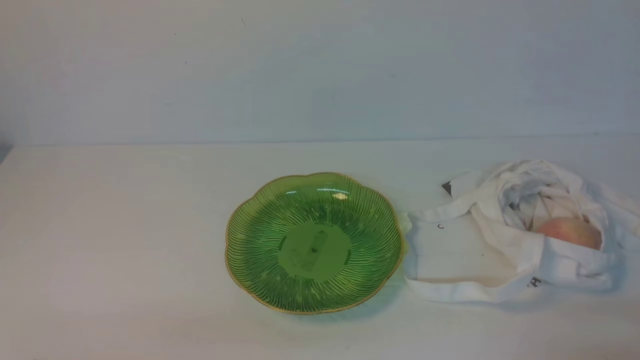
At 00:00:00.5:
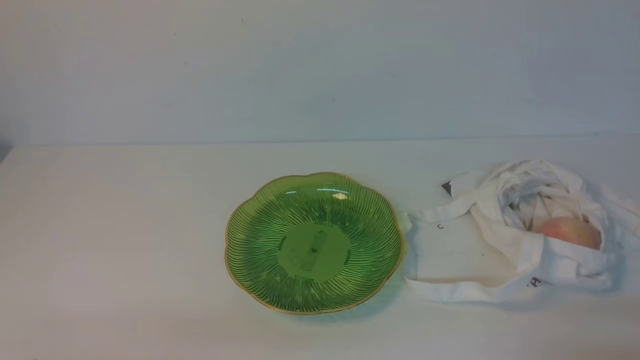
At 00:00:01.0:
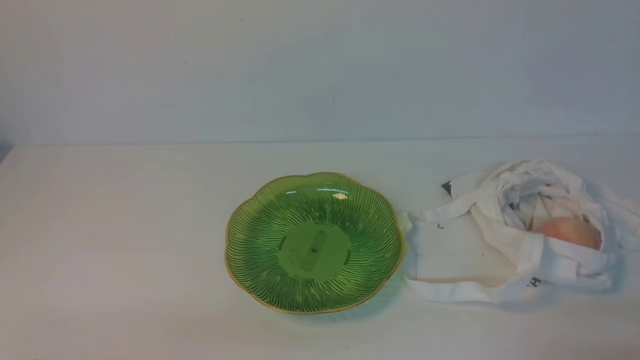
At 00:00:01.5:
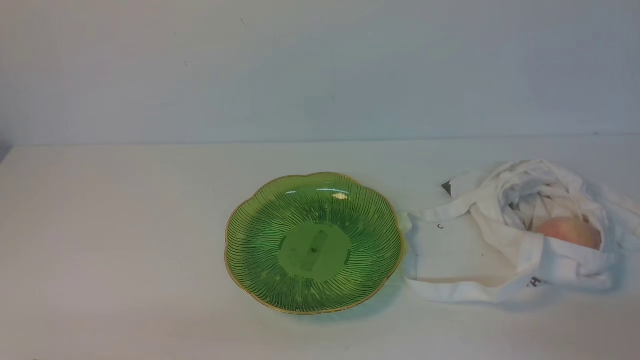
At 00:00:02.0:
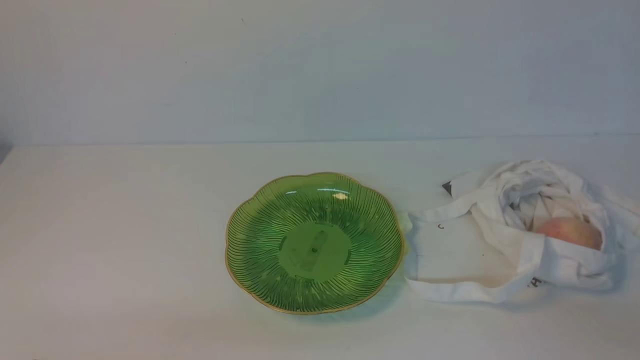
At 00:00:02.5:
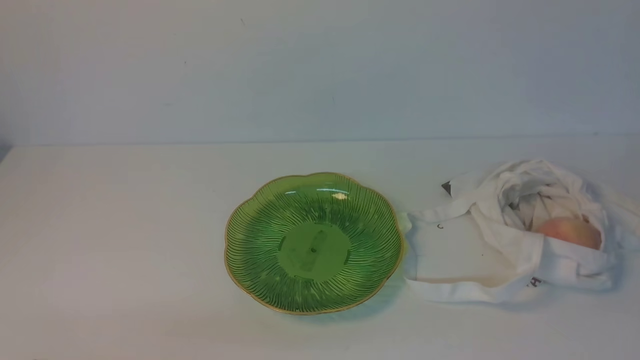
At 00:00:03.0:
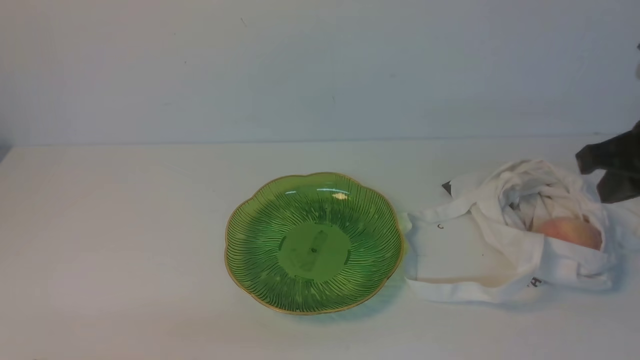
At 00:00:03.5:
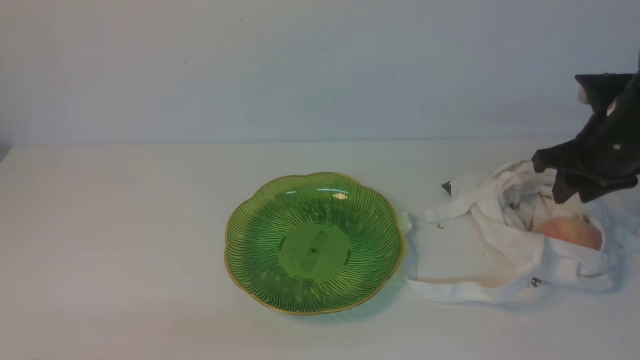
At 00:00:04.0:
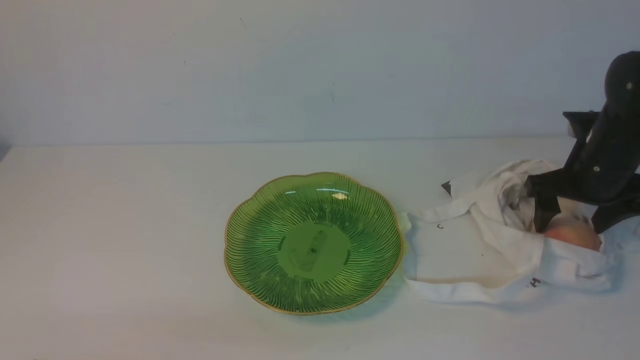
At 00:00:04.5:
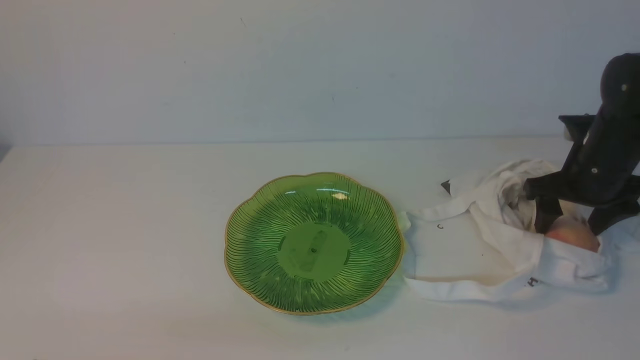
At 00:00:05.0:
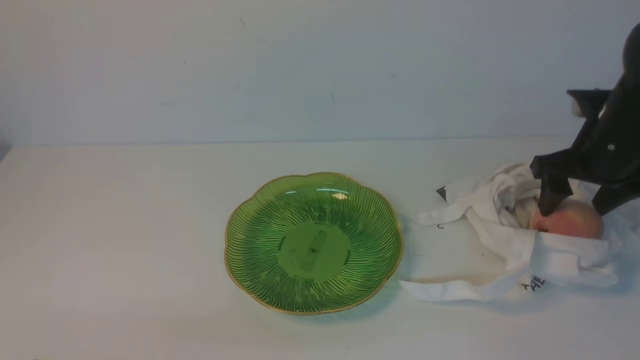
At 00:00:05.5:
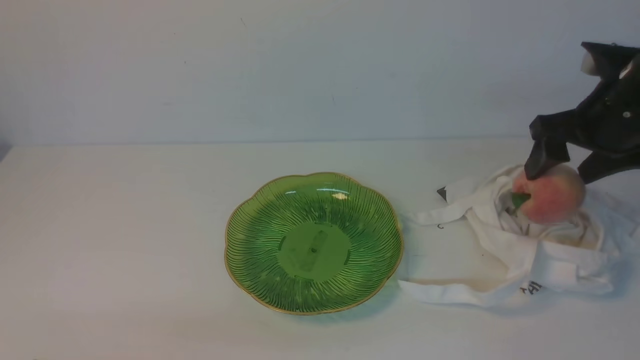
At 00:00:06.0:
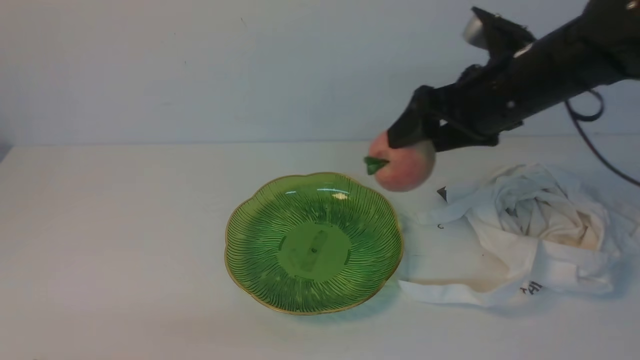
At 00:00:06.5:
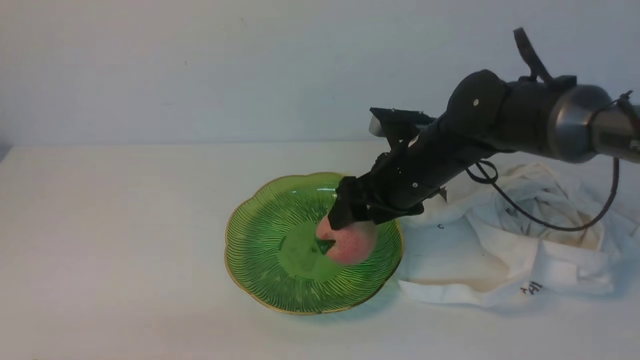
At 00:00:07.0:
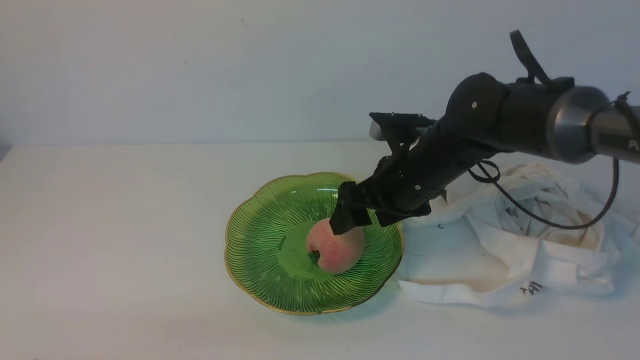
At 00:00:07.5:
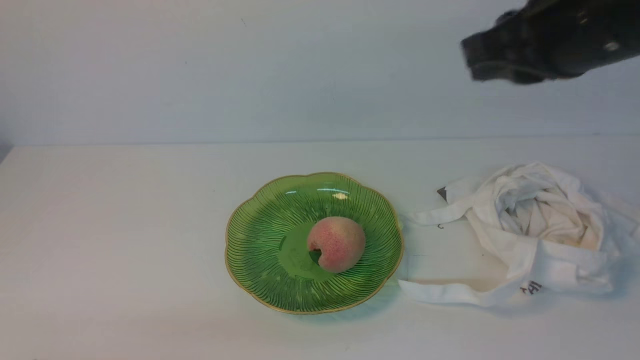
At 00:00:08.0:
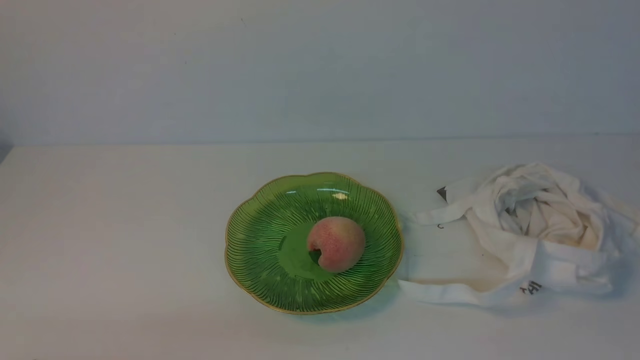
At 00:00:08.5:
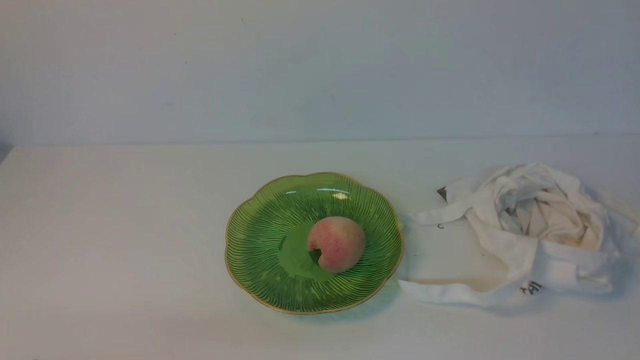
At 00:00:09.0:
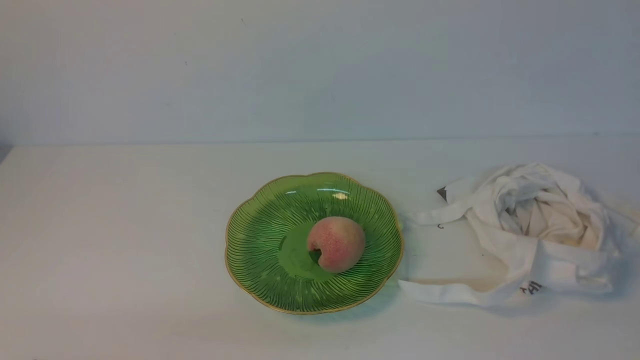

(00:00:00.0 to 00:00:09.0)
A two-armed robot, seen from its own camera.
Step, 00:00:00.0 - 00:00:05.0: use the right arm to grab a peach from the bag.
Step, 00:00:05.5 - 00:00:06.5: use the right arm to put the peach into the empty plate on the left.
00:00:02.0 - 00:00:04.5: The right gripper goes about 35 cm forward, and opens its fingers.
00:00:04.5 - 00:00:07.0: The right gripper goes roughly 20 cm to the left.
00:00:07.0 - 00:00:09.0: The right gripper shifts approximately 35 cm backward and to the right, and closes its fingers.

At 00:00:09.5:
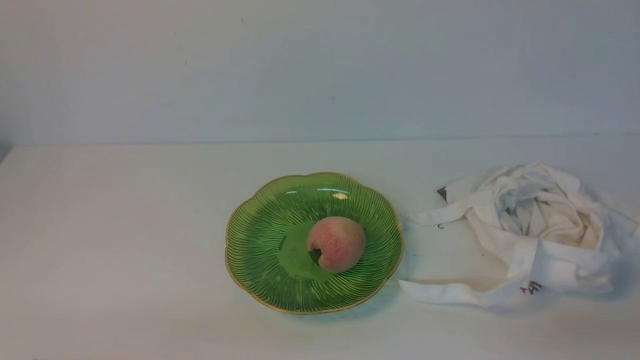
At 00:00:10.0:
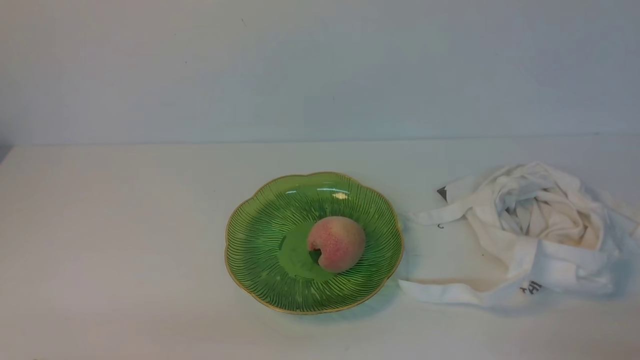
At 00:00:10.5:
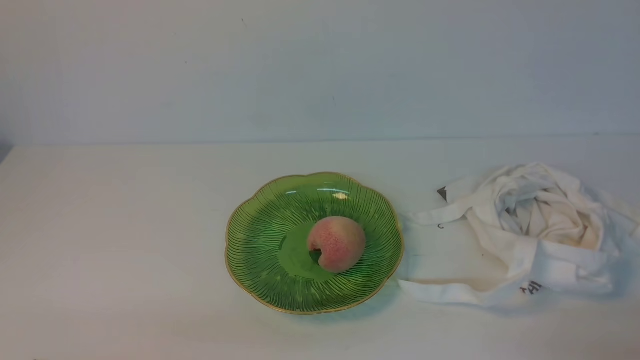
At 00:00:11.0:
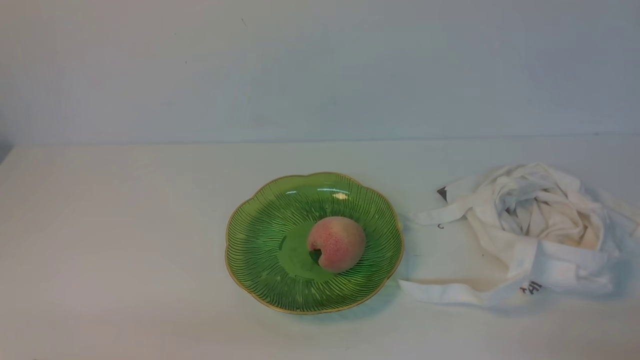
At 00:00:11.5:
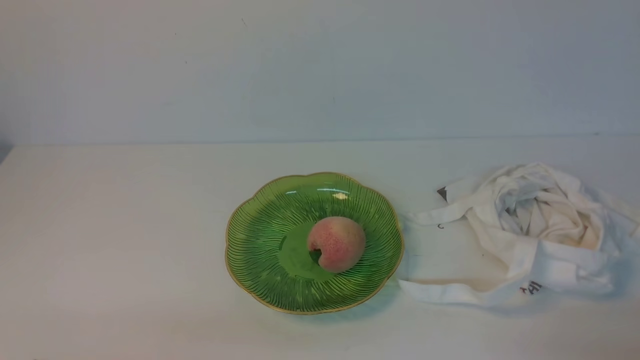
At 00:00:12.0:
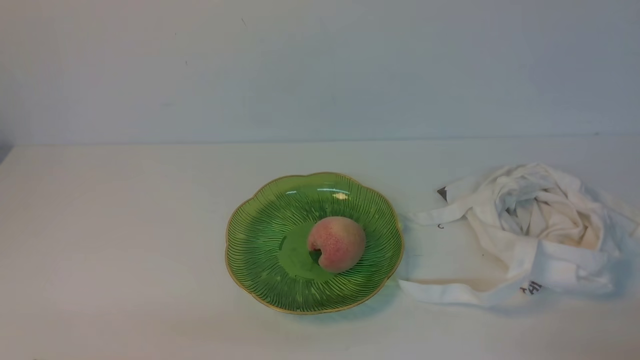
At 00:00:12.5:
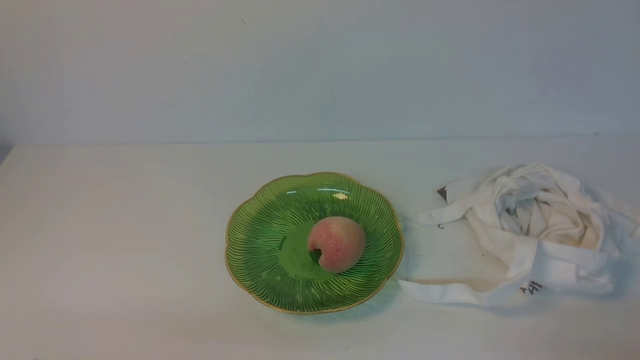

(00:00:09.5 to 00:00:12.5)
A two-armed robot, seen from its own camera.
00:00:11.0 - 00:00:12.5: The two grippers keep their place.

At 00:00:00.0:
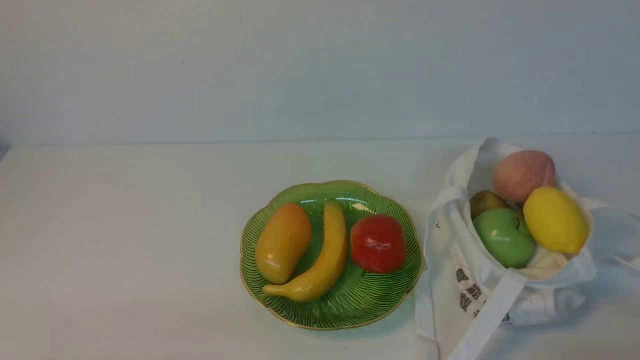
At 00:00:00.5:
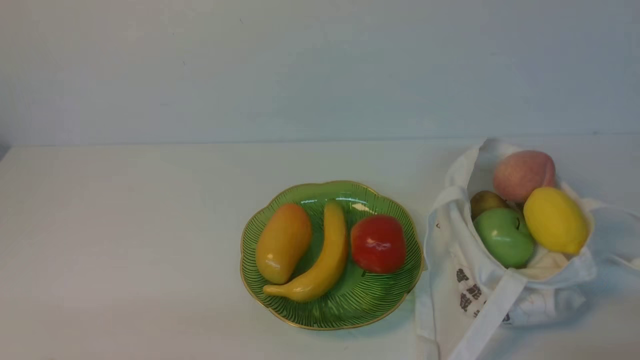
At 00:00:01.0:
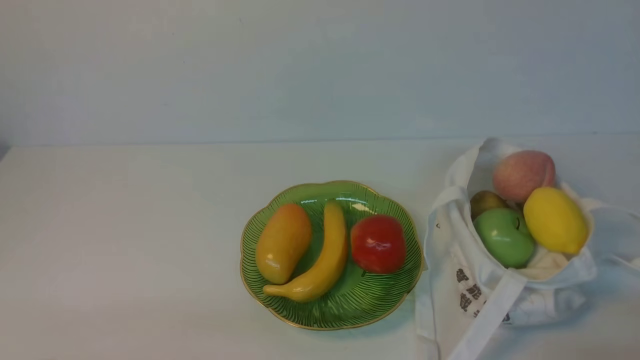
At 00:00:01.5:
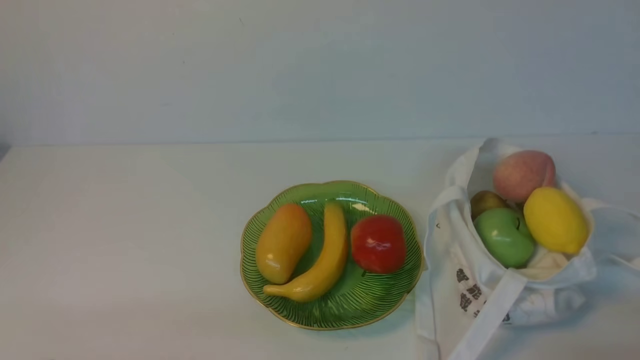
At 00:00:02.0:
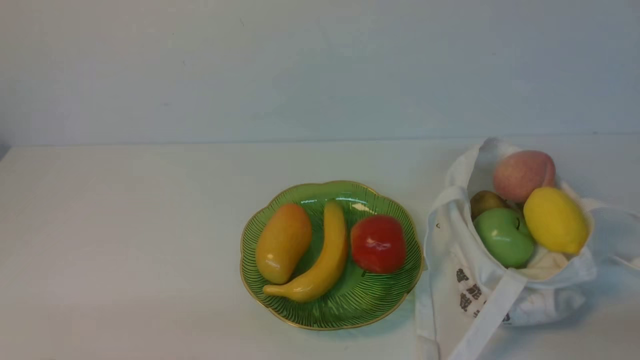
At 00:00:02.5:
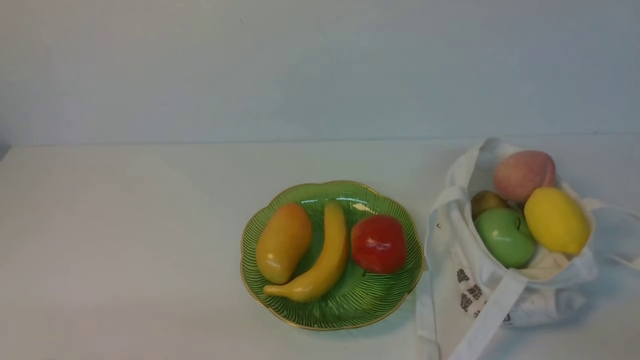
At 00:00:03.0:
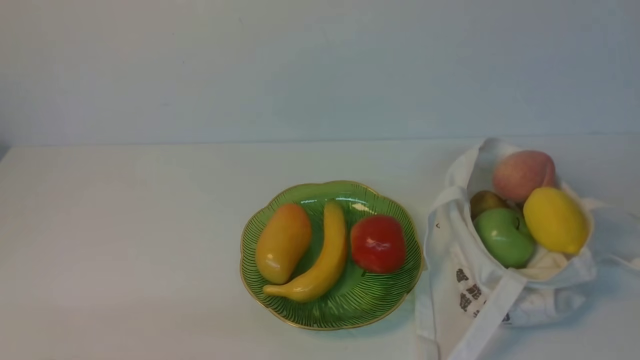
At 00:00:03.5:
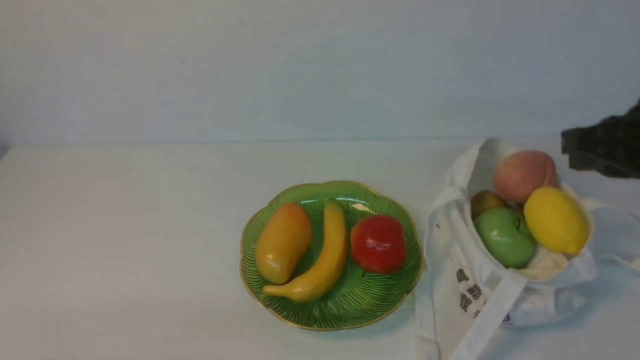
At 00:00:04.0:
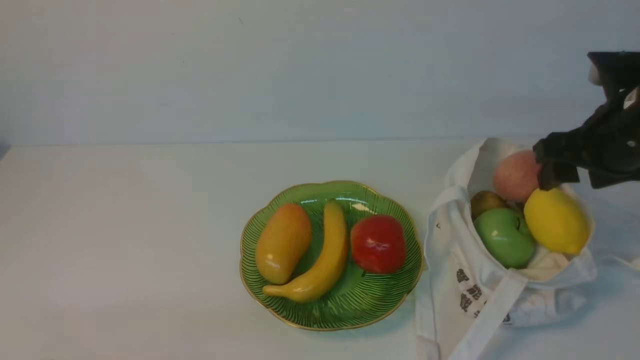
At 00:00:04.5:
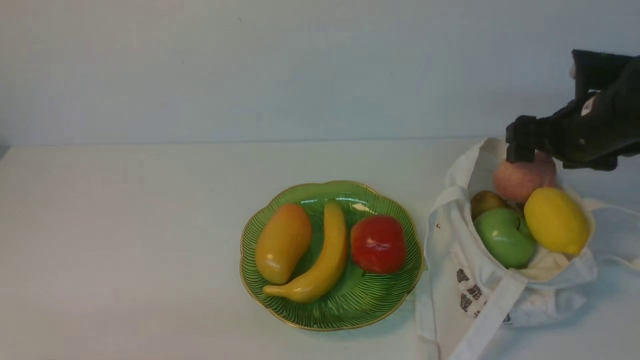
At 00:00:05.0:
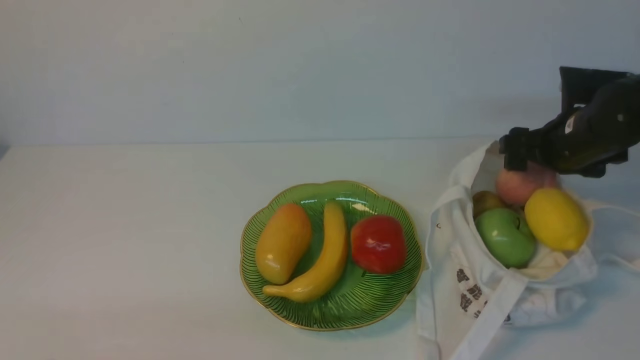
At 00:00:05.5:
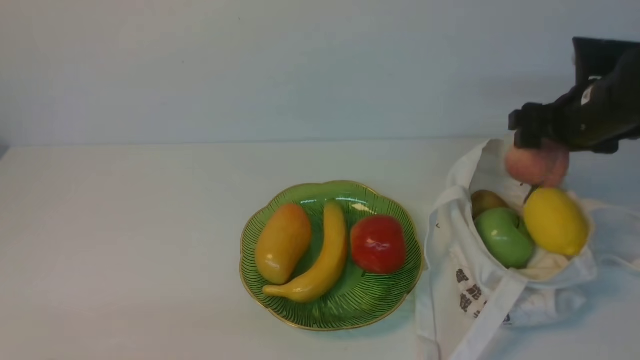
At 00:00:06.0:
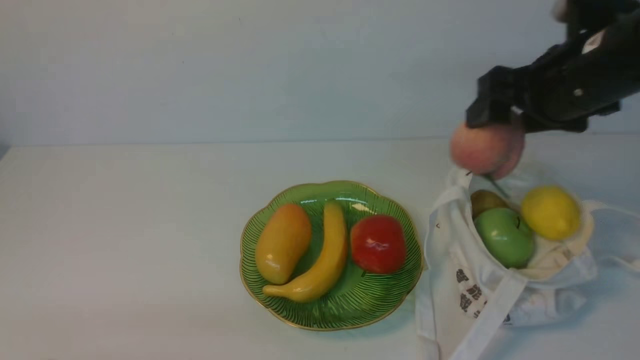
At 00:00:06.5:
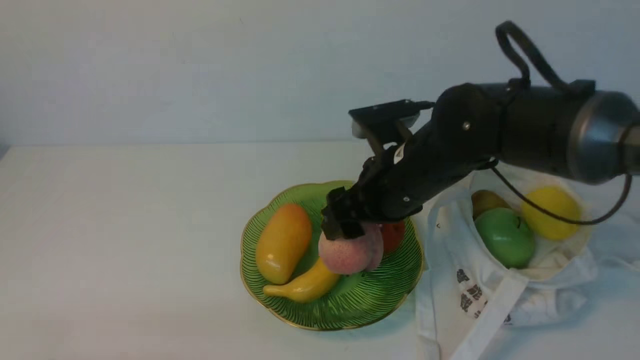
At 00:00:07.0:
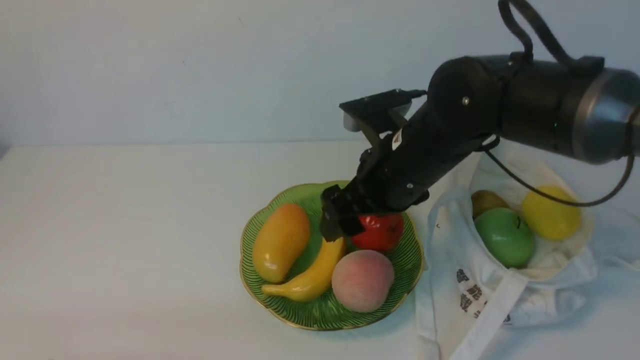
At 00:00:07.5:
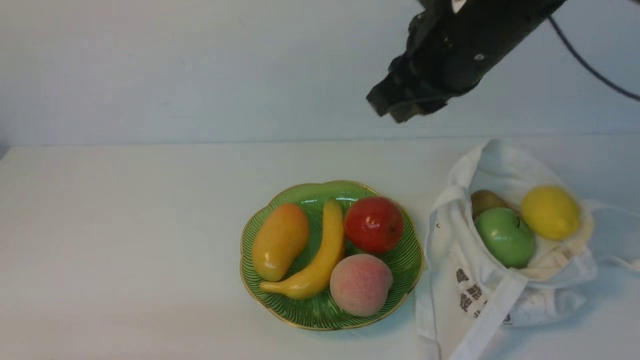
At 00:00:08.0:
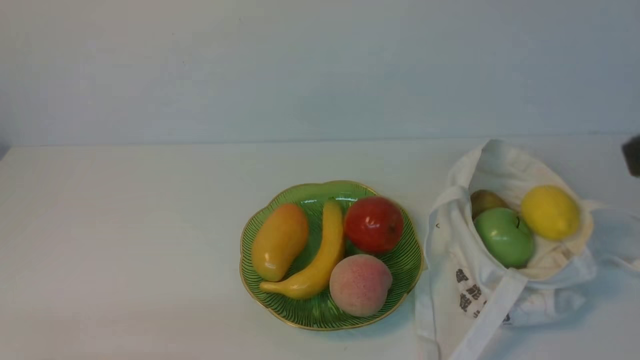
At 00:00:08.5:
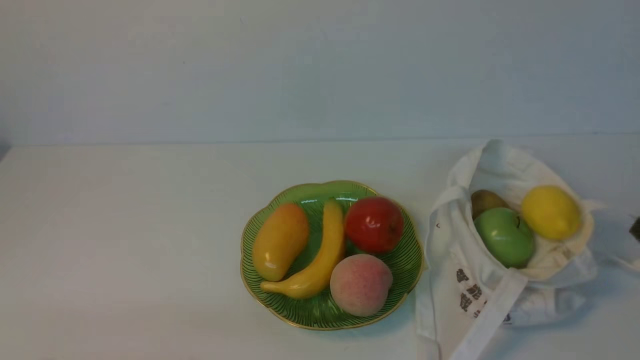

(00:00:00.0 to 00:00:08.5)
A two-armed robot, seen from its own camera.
Step, 00:00:00.0 - 00:00:05.0: use the right arm to grab a peach from the bag.
Step, 00:00:05.5 - 00:00:06.5: use the right arm to put the peach into the empty plate on the left.
00:00:02.0 - 00:00:04.0: The right gripper shifts about 30 cm forward, and opens.
00:00:04.0 - 00:00:06.5: The right gripper goes about 20 cm to the left.
00:00:06.5 - 00:00:08.5: The right gripper heads backward and to the right, covering some 30 cm, and closes its fingers.
